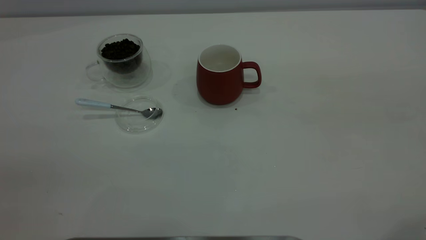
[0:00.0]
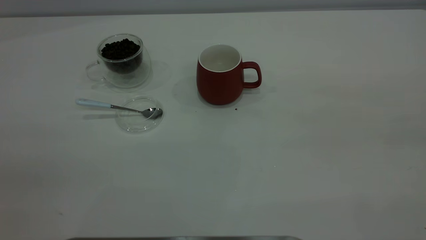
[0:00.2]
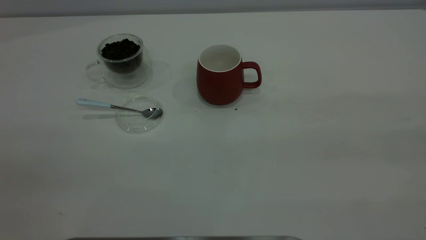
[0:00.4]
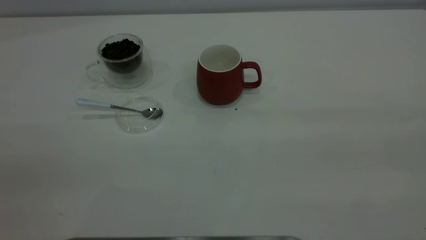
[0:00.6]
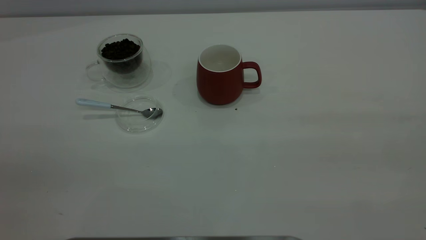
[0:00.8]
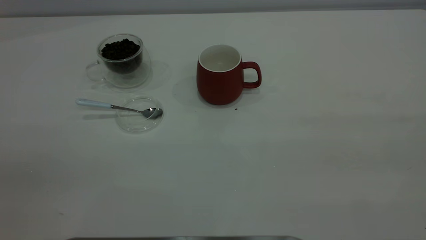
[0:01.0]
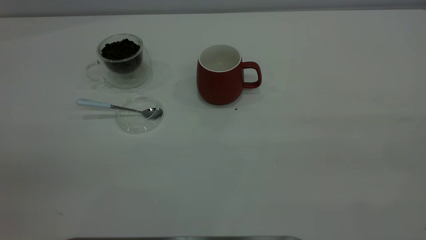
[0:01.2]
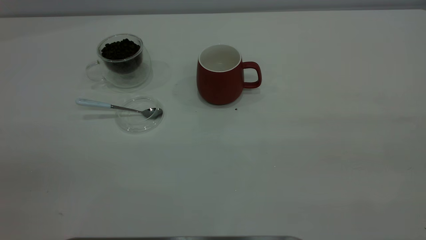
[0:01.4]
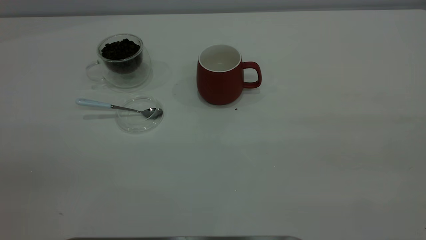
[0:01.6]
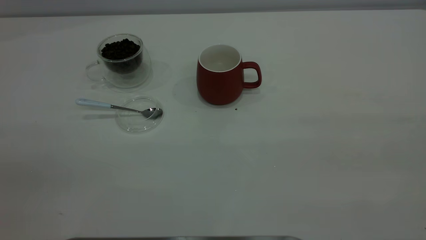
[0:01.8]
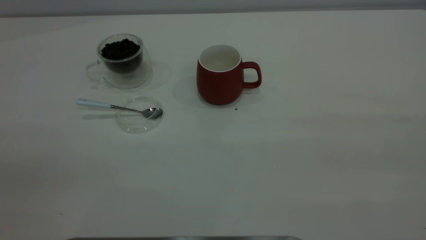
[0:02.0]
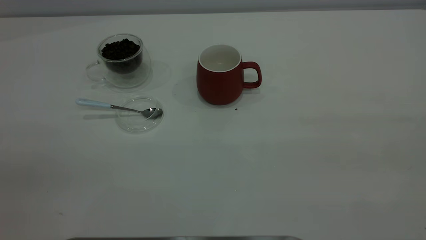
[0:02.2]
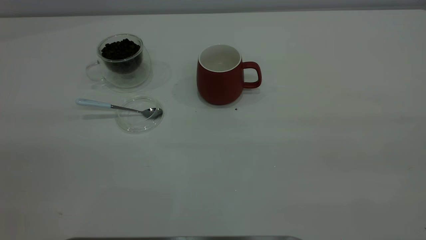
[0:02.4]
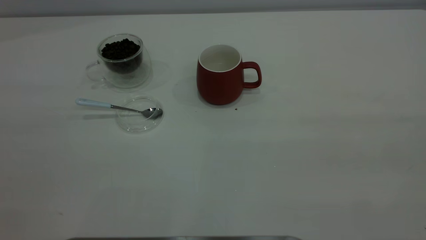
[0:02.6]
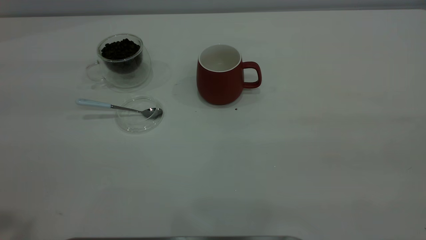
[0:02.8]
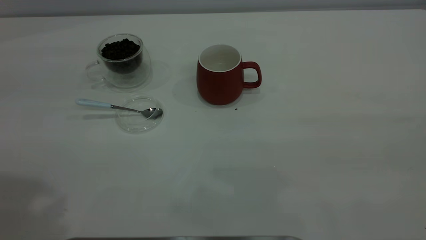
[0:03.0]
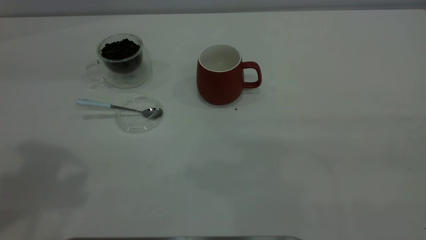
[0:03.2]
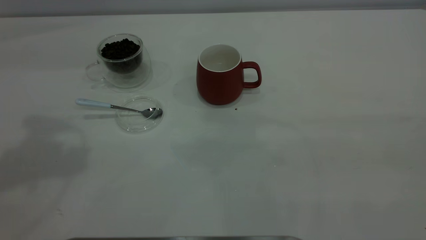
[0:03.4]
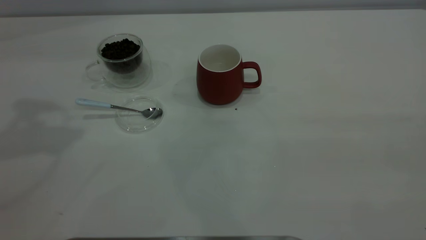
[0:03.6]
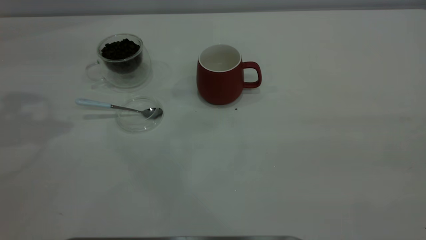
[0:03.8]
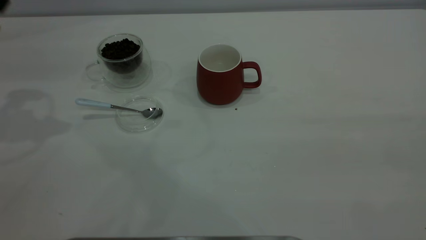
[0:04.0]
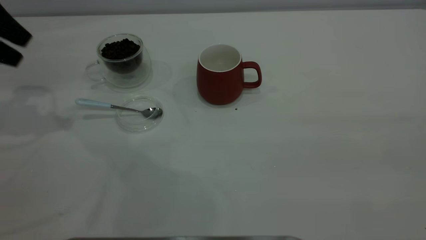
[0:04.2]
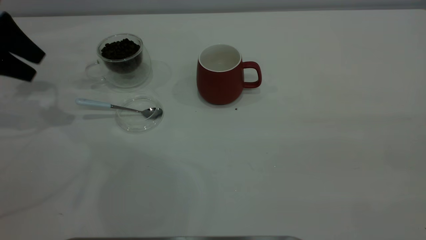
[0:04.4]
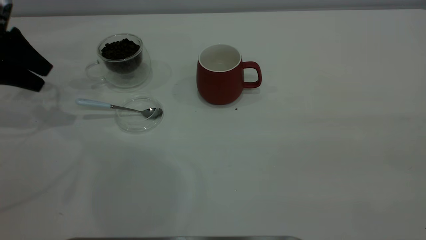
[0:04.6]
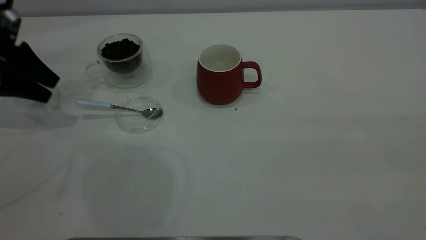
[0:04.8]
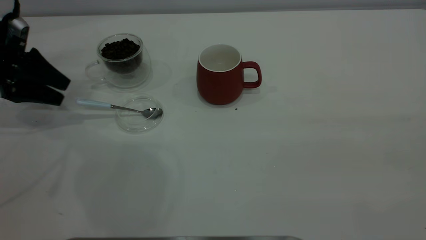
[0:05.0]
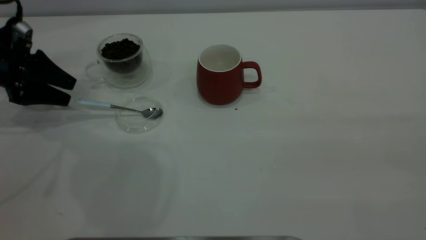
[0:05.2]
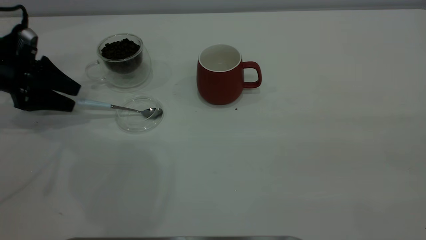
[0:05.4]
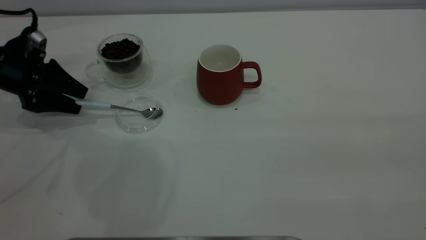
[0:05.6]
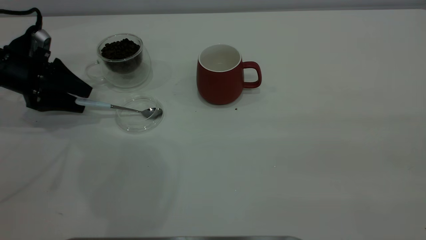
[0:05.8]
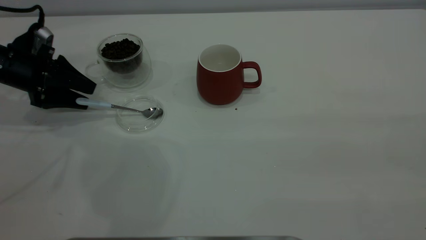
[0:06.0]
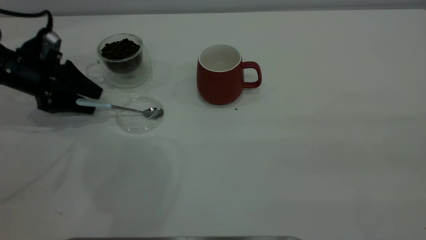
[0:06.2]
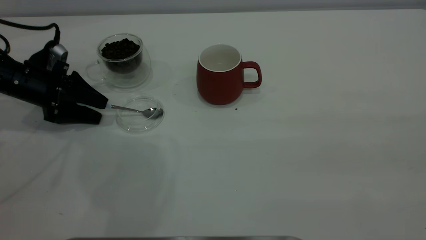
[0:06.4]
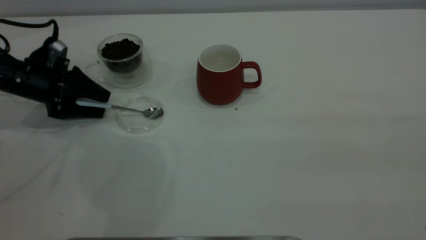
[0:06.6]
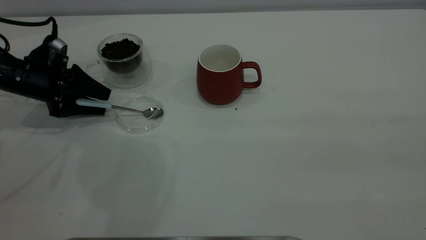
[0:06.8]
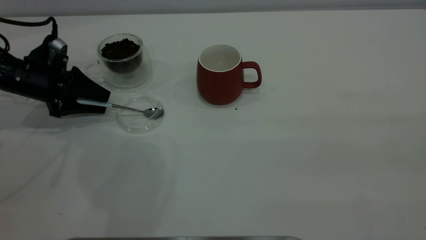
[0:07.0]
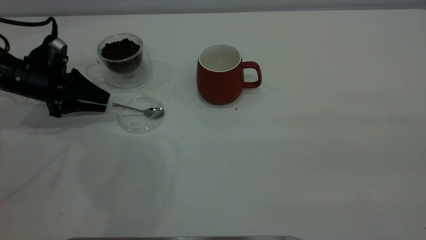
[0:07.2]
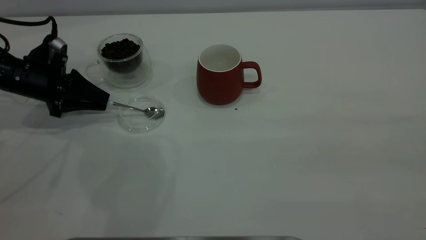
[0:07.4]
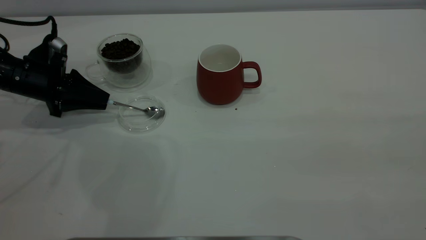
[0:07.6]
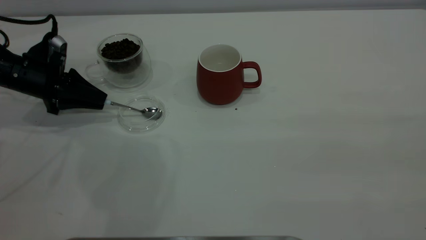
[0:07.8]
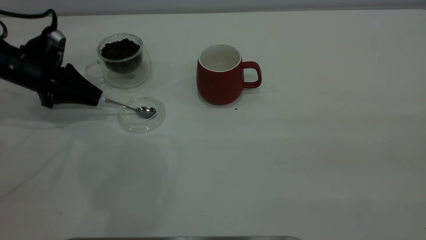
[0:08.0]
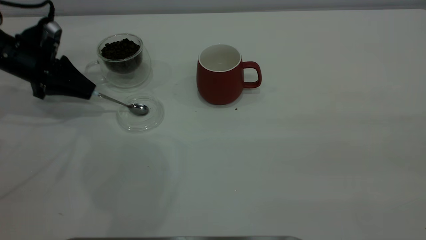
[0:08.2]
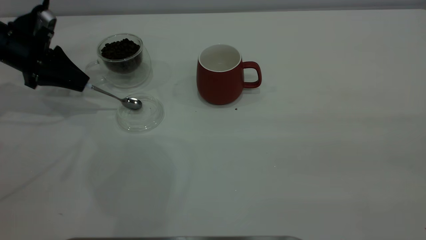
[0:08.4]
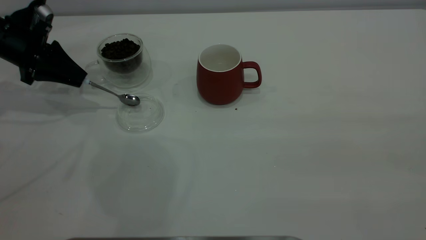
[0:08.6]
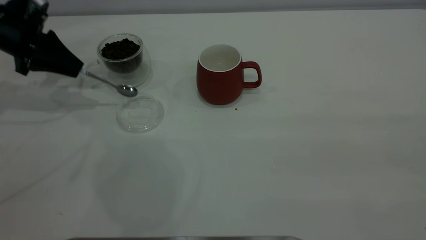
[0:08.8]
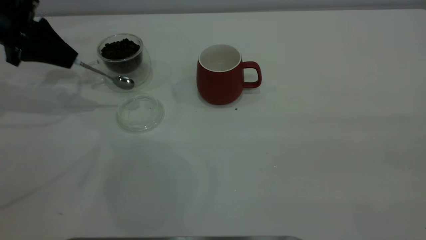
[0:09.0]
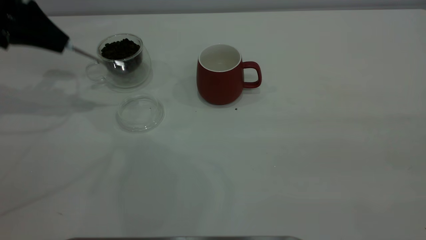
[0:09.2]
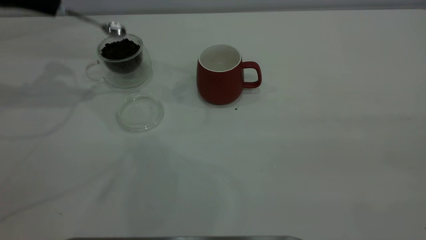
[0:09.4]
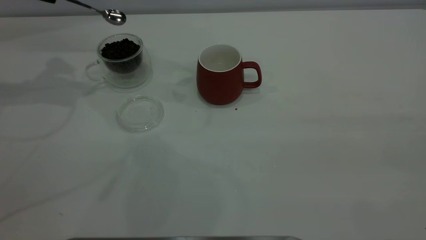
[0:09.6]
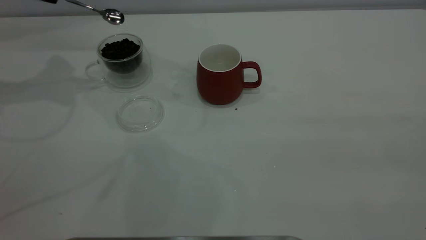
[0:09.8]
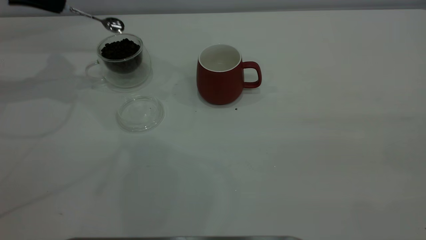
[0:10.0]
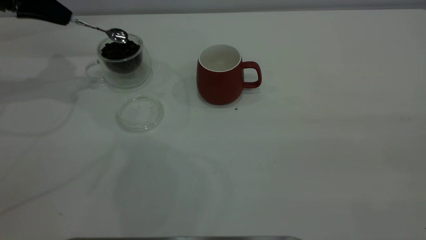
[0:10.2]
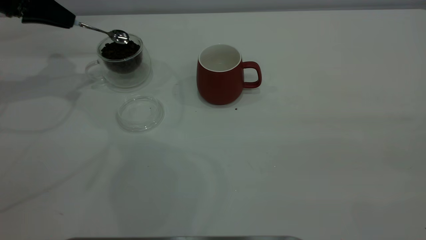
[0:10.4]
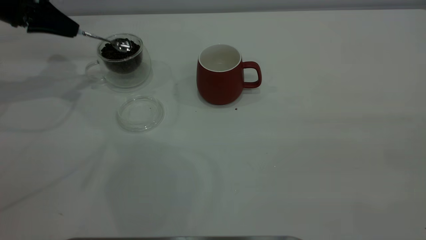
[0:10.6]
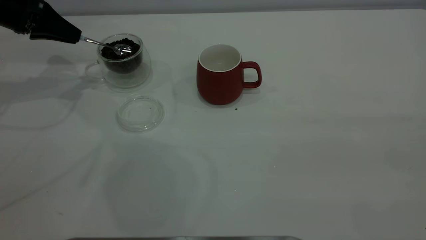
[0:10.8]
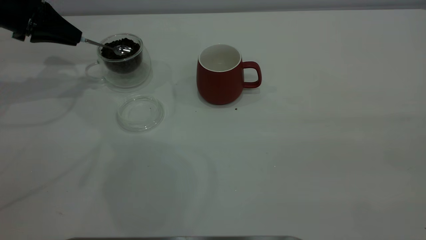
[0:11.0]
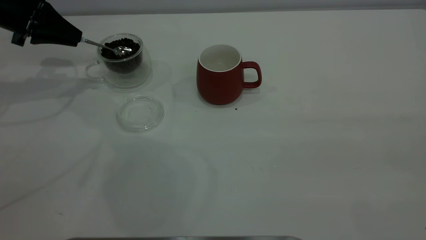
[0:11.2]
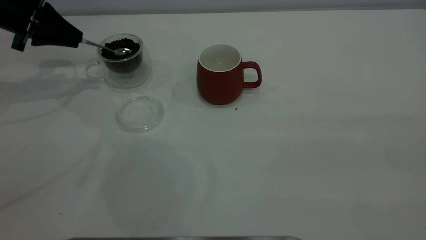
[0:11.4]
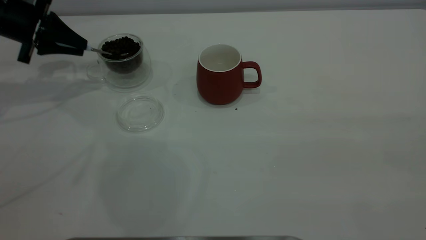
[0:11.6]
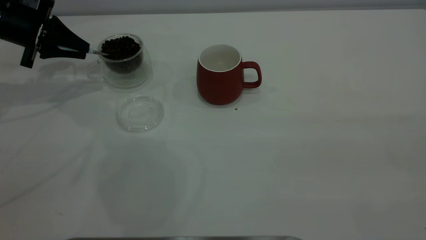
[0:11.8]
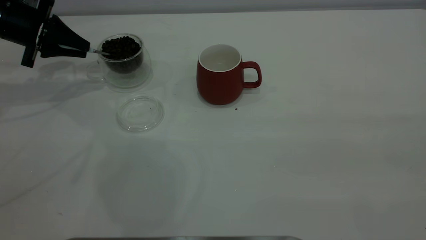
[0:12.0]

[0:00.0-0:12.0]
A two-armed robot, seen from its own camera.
Task of the whole recording: the right gripper place the red cup in the center of the table, the left gripper take the blue spoon from the cup lid and scoop out the coffee beans from the coffee cup and put them into the red cup, the left gripper put the spoon back into the cup lid.
Step, 0.0 to 8.8 s: Pick up the spoon.
3.0 to 4.4 s: The left gripper heads downward, forward and to the left, covering about 35 cm.
4.4 to 6.0 s: The left gripper heads downward, covering approximately 10 cm.
6.0 to 7.6 s: The left gripper closes.
7.6 to 9.0 s: The left gripper shifts some 10 cm upward.
9.0 to 10.4 s: The left gripper reaches about 10 cm upward, then returns.
10.4 to 12.0 s: The left gripper travels downward by about 5 cm.

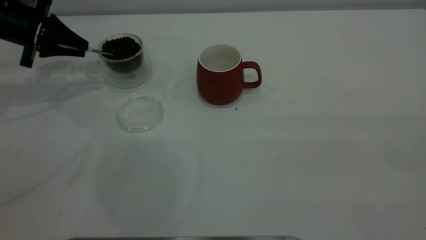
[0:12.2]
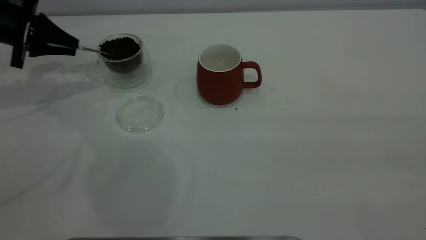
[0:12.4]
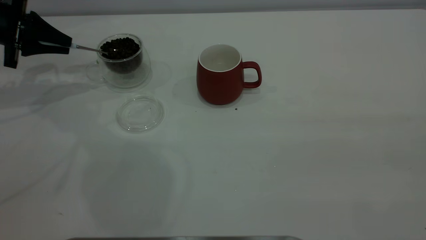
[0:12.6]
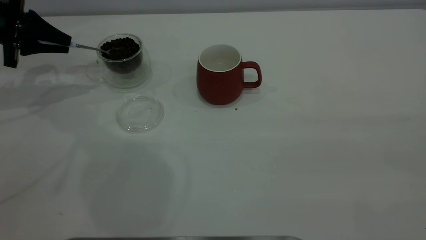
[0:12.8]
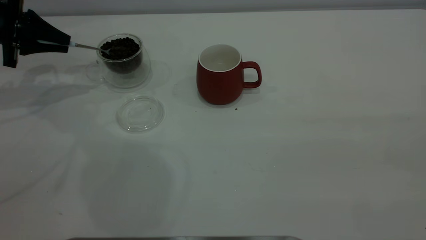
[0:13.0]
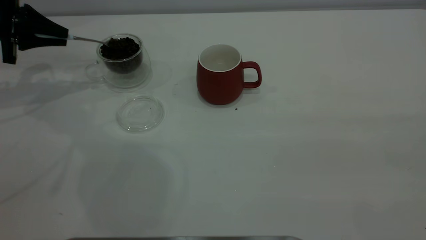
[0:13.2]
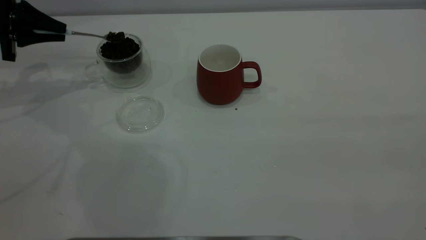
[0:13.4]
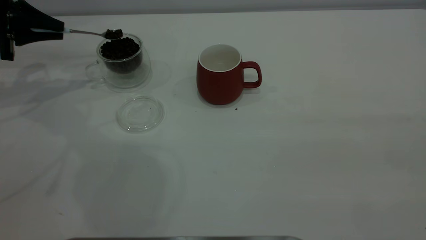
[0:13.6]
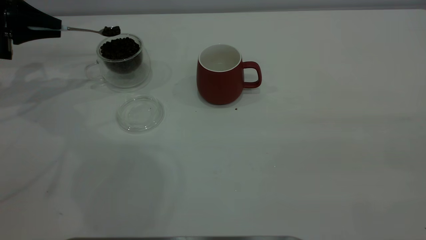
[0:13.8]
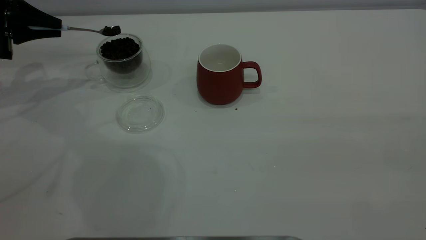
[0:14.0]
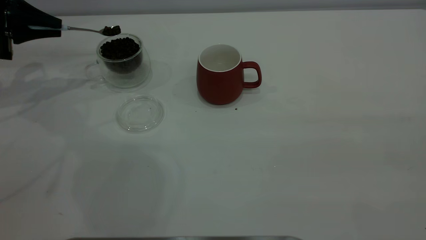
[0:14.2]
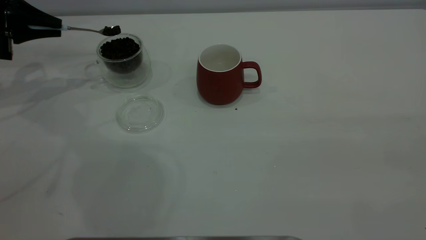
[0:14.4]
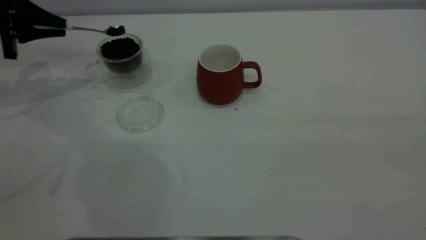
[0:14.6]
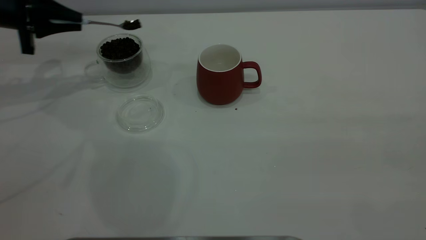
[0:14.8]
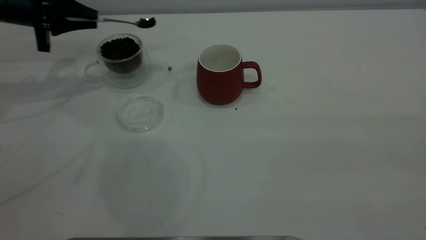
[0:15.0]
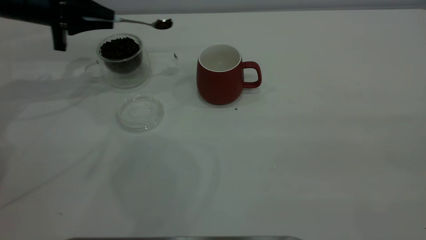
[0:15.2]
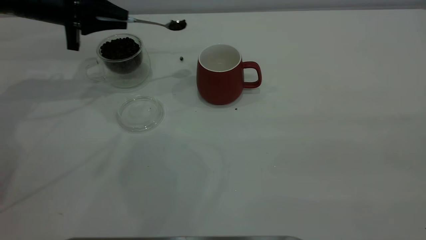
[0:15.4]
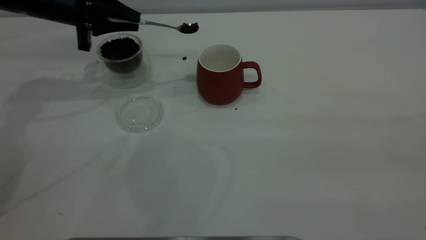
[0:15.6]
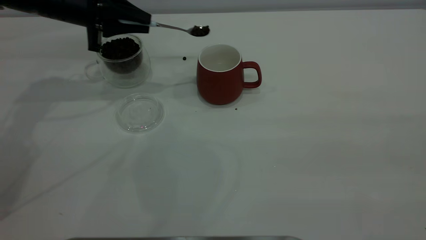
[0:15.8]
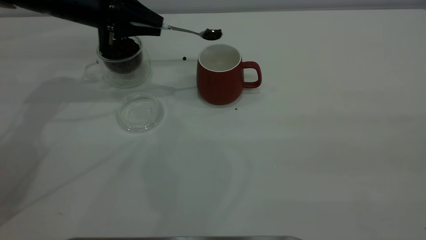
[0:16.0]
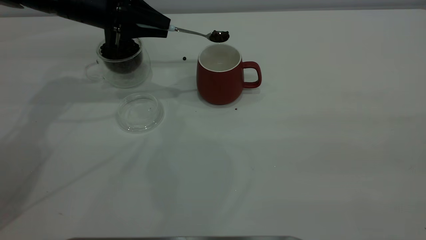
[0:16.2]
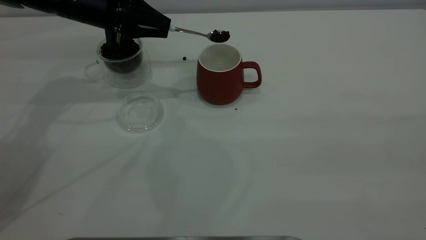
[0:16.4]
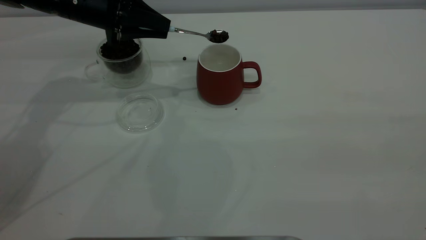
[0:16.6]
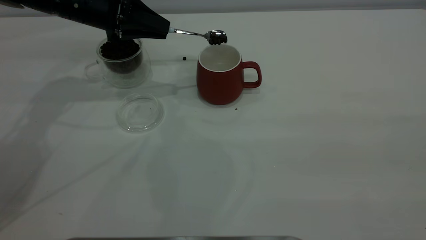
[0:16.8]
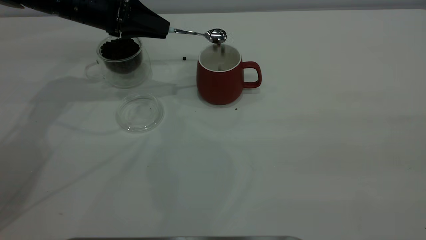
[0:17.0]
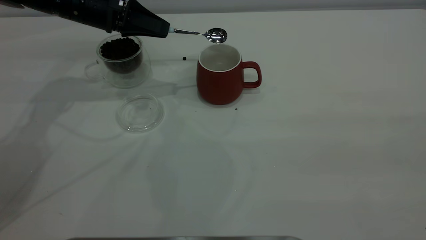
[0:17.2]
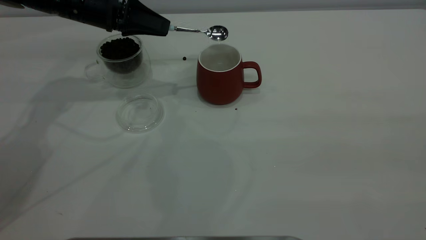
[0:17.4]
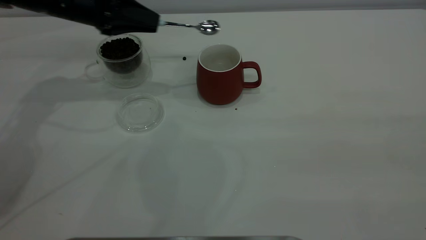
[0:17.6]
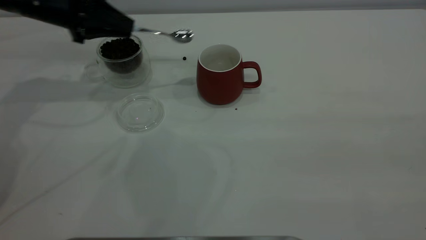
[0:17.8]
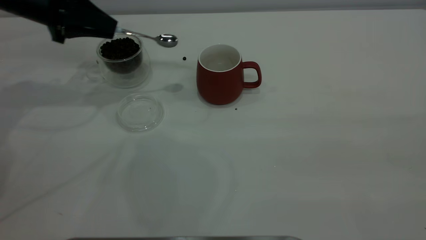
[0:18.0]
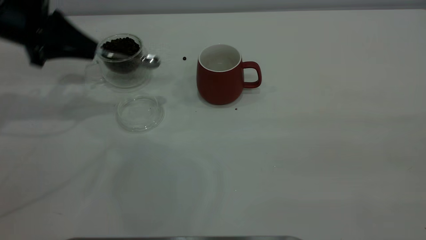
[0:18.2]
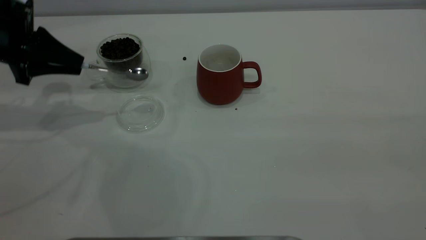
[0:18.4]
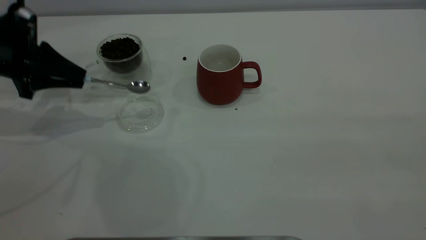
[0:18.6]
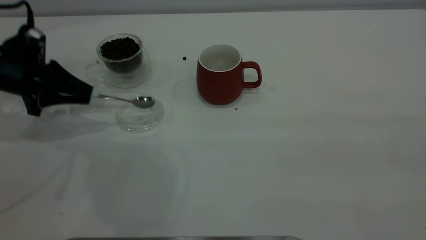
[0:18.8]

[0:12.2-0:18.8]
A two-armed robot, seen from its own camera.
Task of the whole recording: the right gripper place the red cup in the center of the table, the left gripper take the blue spoon from the cup lid and scoop out the coffee beans from the coffee cup and put them into the red cup, the left gripper put the spoon back into the cup lid.
Step, 12.2 to 17.6 s: Scoop a spoonful of beans into the cup.
12.2 to 13.8 s: The grippers make only small movements.
13.8 to 15.4 s: The left gripper shifts about 10 cm to the right.
15.4 to 17.2 s: The left gripper moves to the right, some 5 cm.
17.2 to 18.8 s: The left gripper shifts roughly 15 cm to the left, backward and downward.
